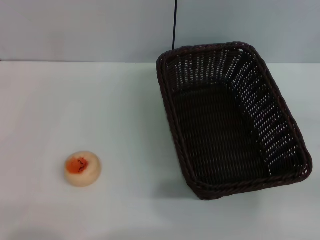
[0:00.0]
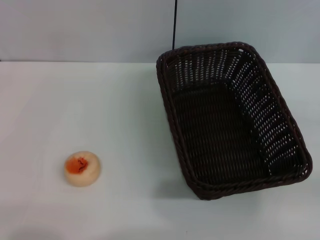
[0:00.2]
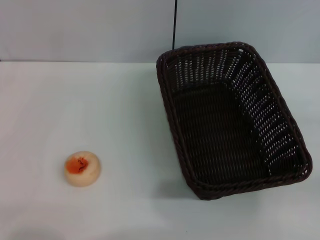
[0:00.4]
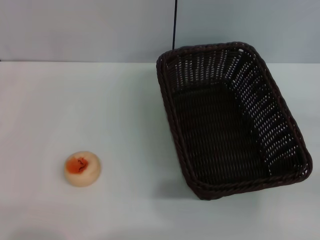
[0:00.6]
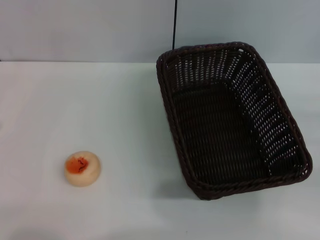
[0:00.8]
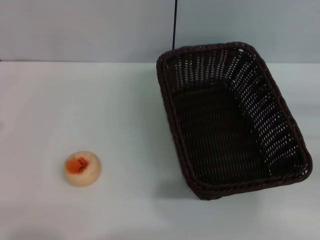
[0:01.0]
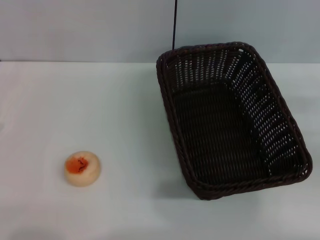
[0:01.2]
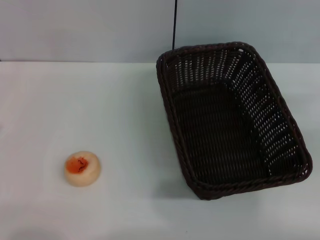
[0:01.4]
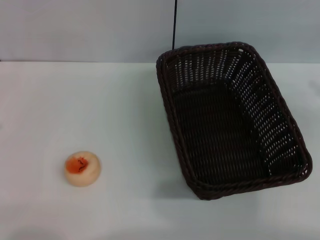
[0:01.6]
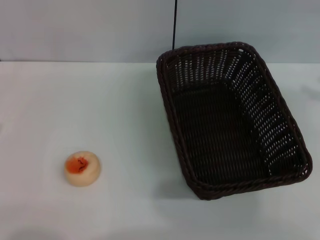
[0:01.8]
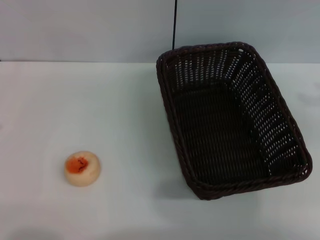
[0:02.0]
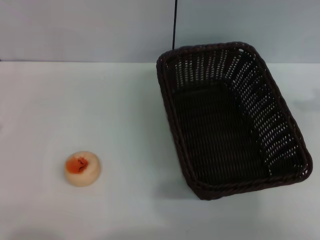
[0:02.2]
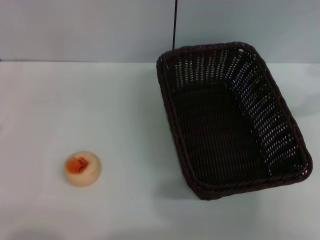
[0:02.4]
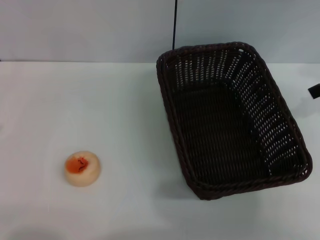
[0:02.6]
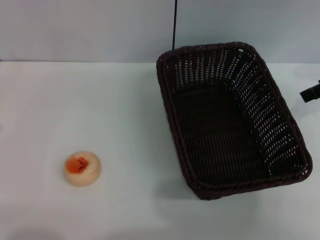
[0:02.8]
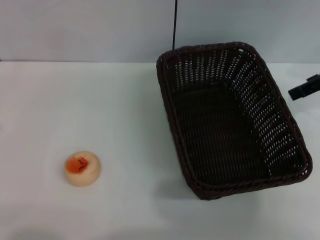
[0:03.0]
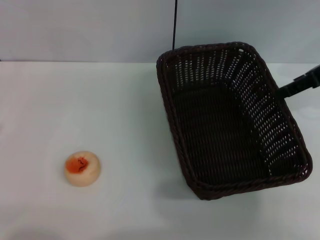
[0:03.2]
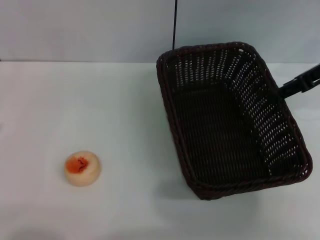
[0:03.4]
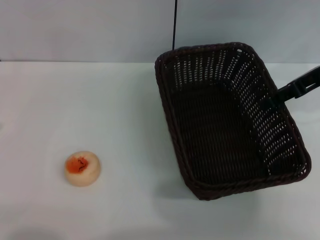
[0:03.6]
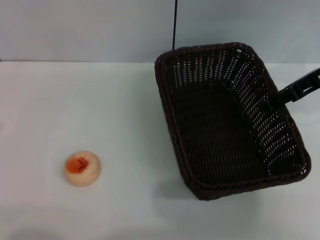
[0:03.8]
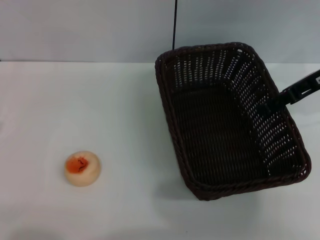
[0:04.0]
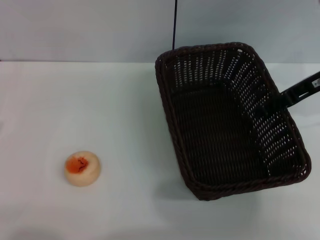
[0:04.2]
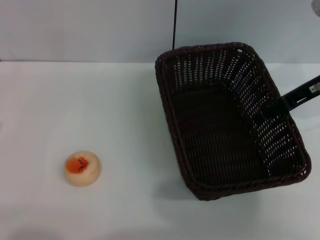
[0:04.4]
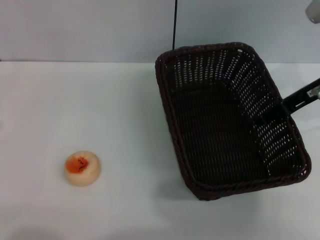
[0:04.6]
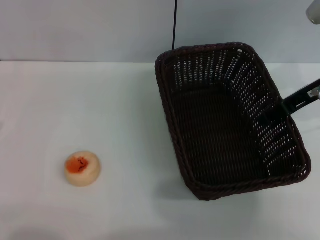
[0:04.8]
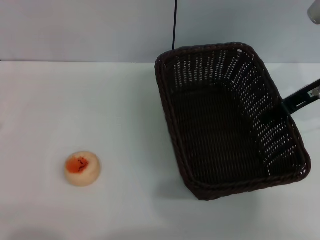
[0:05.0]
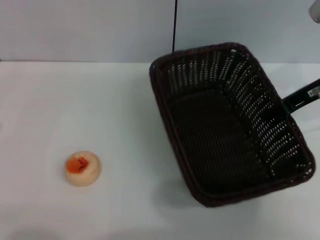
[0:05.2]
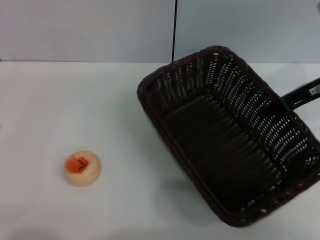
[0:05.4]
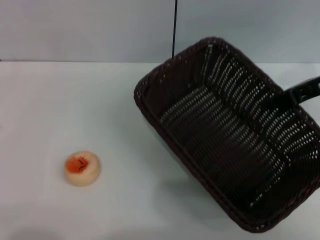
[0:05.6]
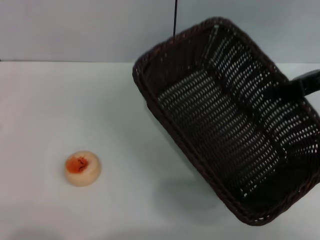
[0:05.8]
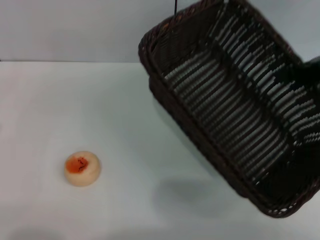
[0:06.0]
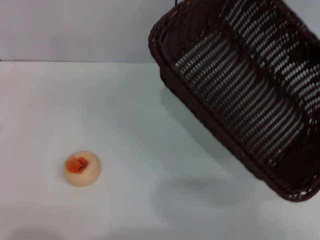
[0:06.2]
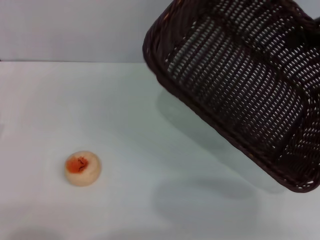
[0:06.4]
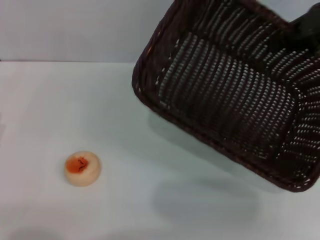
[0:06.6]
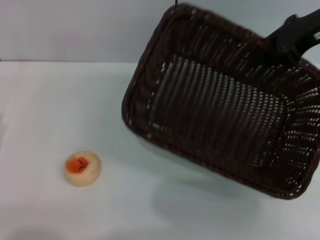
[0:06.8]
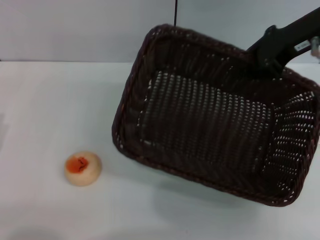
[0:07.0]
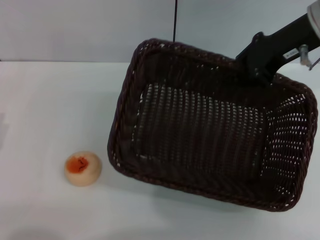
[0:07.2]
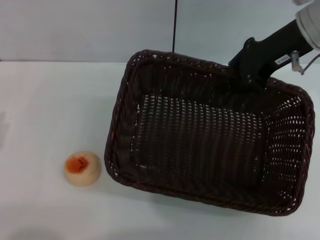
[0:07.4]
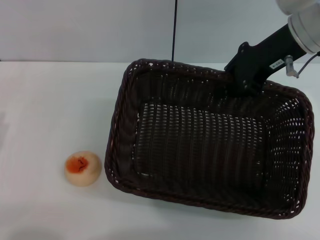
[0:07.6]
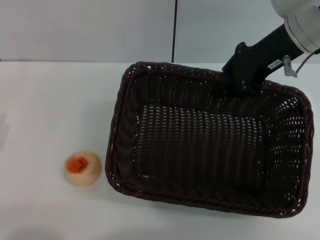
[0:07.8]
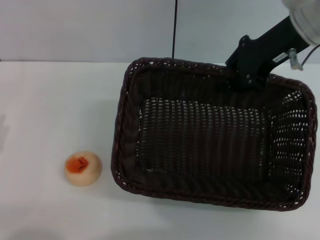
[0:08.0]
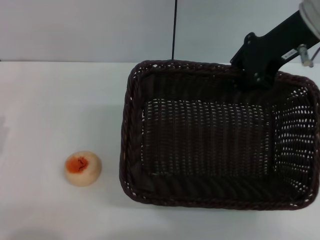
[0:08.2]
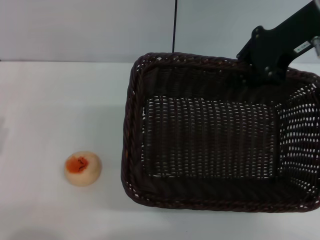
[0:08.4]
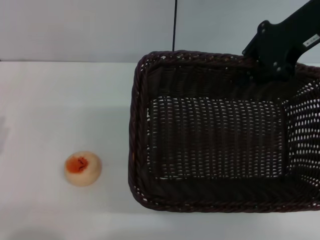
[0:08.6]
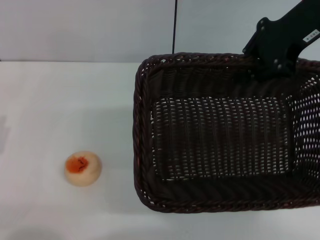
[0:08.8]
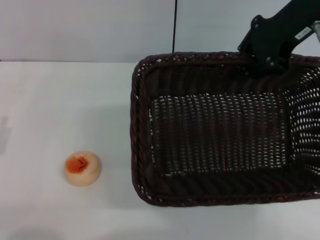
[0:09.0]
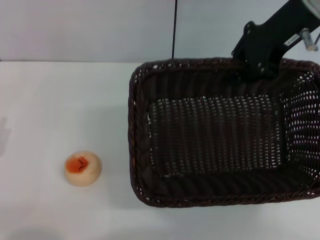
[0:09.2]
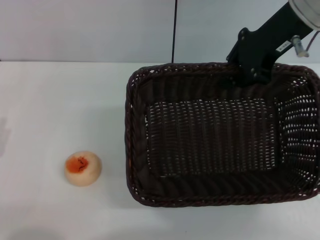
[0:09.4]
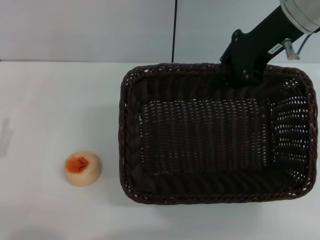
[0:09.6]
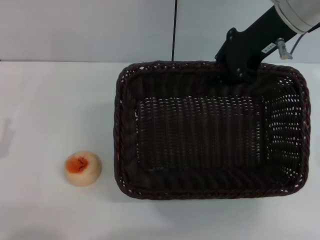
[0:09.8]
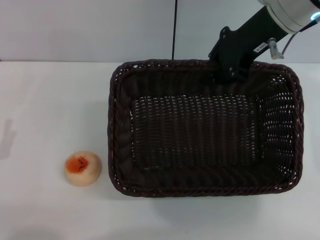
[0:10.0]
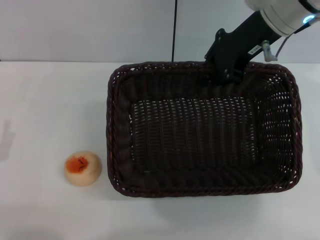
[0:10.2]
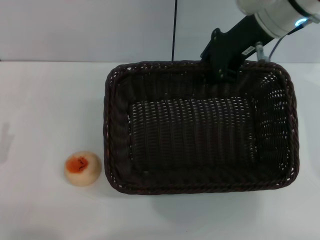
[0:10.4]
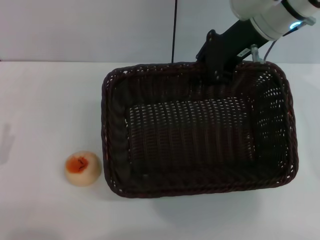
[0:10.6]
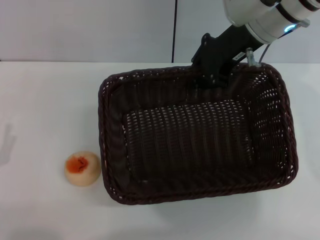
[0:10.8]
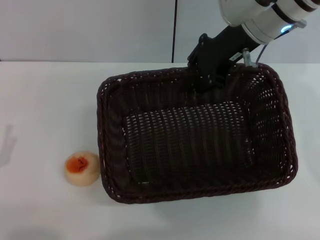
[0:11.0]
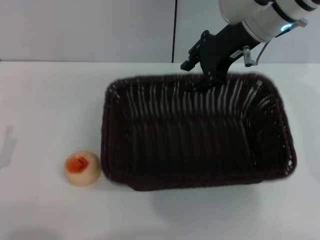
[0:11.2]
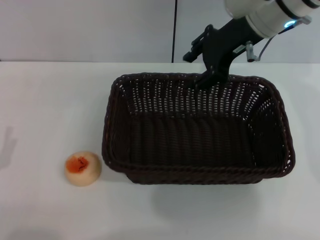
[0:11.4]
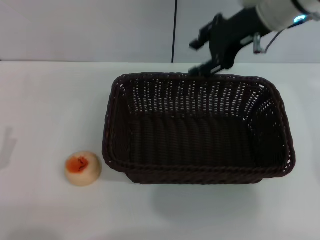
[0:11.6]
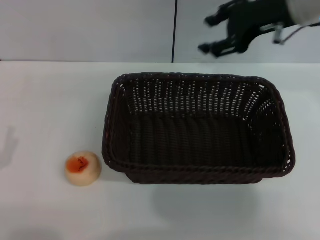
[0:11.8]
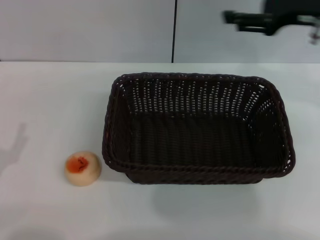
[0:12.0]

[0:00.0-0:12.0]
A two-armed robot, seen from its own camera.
Step, 0:00.0 to 0:11.6: Move the basket to the center of view with the right gripper.
0:01.6 to 0:03.0: The right gripper travels to the left and forward by roughly 15 cm.
0:03.0 to 0:04.4: The right gripper goes approximately 5 cm downward.
0:04.4 to 0:06.0: The right gripper heads to the right, covering about 5 cm, and closes.
0:06.0 to 0:07.6: The right gripper moves to the left, roughly 15 cm.
0:07.6 to 0:09.0: The right gripper is displaced upward by about 5 cm.
0:09.0 to 0:10.4: The right gripper travels downward by roughly 5 cm.
0:10.4 to 0:12.0: The right gripper shifts some 10 cm to the right, and opens.

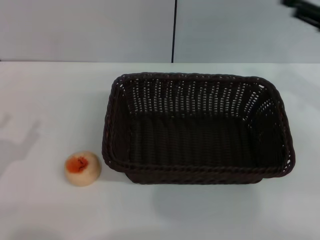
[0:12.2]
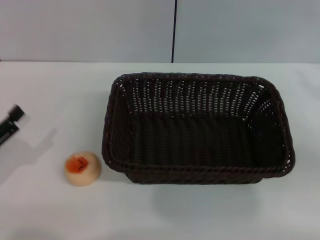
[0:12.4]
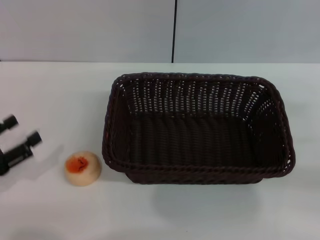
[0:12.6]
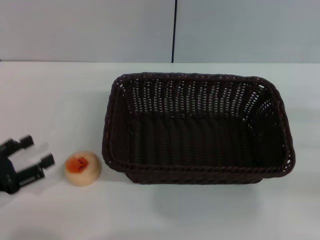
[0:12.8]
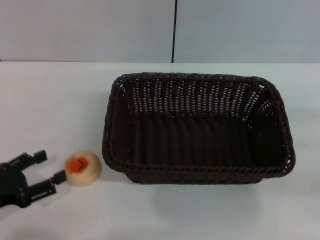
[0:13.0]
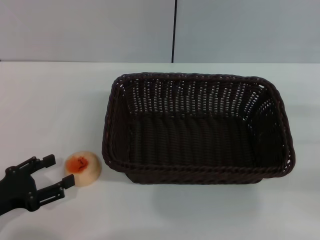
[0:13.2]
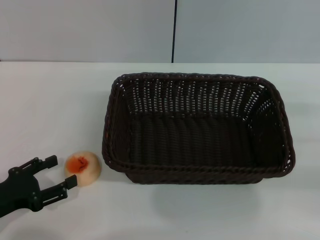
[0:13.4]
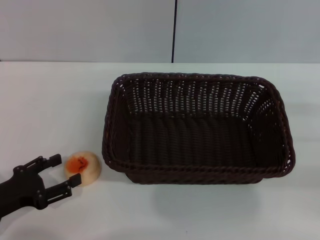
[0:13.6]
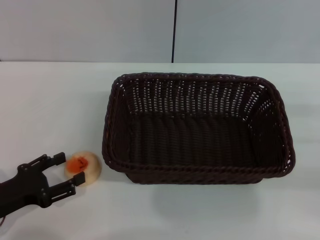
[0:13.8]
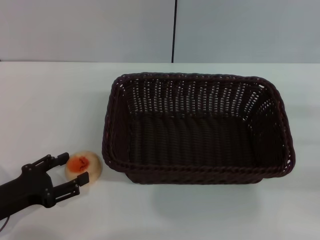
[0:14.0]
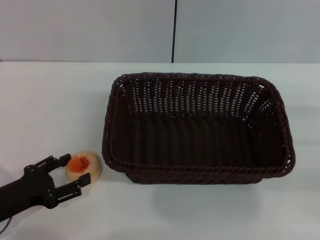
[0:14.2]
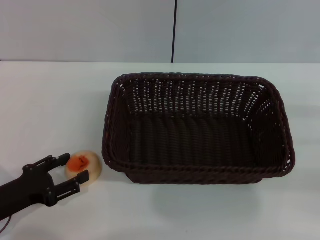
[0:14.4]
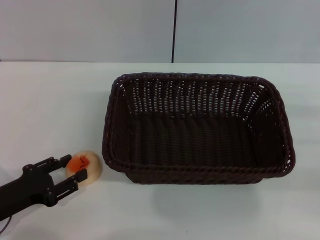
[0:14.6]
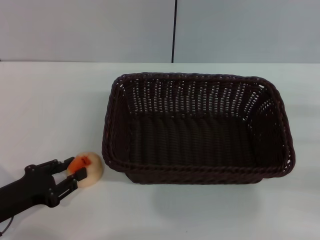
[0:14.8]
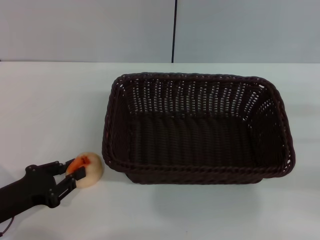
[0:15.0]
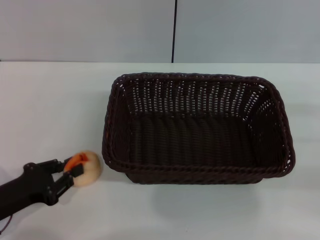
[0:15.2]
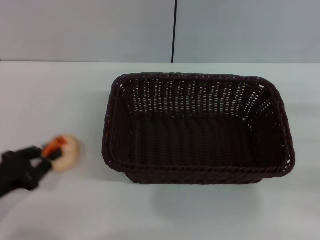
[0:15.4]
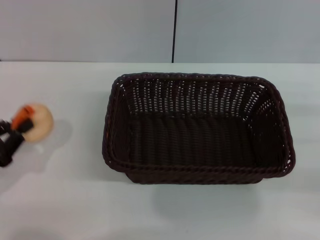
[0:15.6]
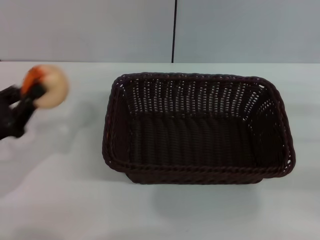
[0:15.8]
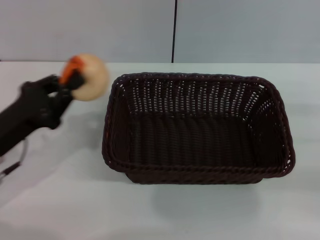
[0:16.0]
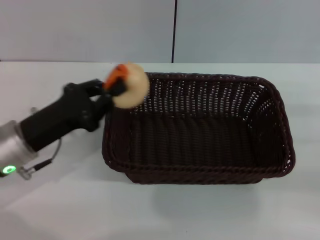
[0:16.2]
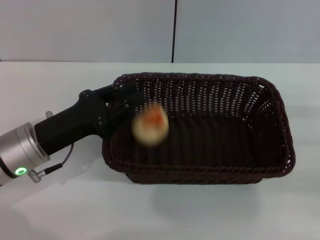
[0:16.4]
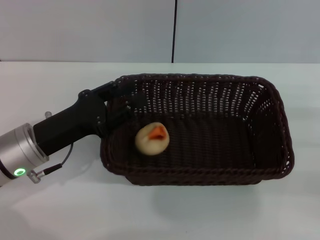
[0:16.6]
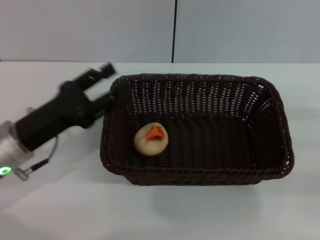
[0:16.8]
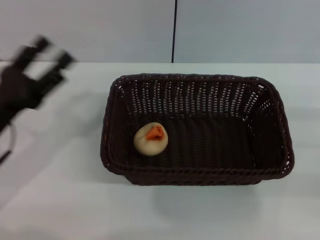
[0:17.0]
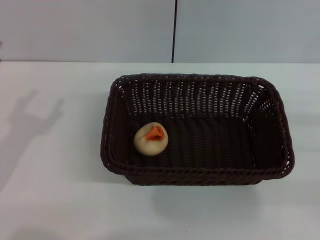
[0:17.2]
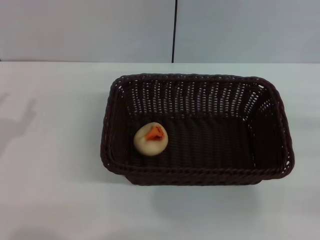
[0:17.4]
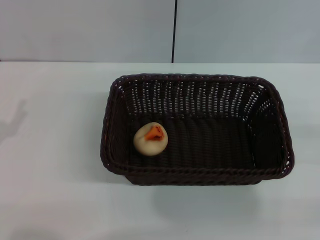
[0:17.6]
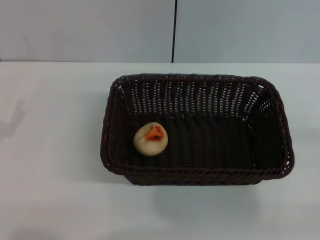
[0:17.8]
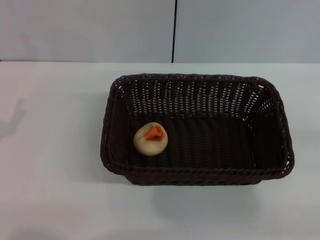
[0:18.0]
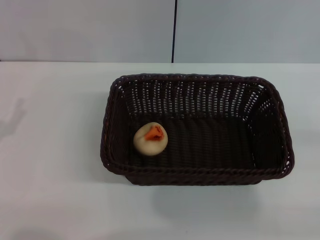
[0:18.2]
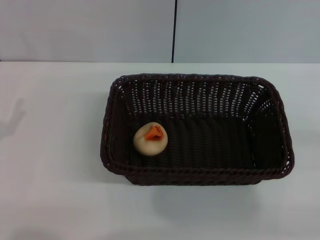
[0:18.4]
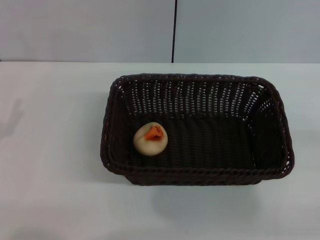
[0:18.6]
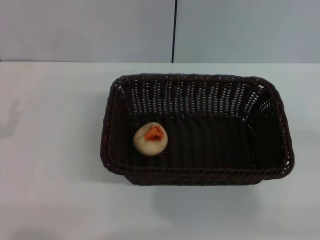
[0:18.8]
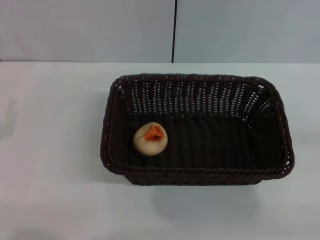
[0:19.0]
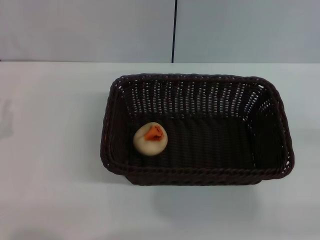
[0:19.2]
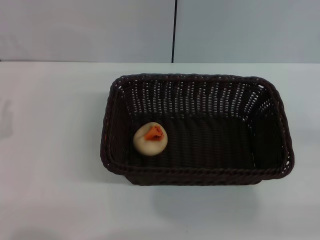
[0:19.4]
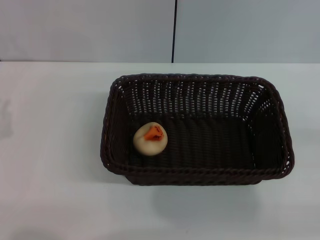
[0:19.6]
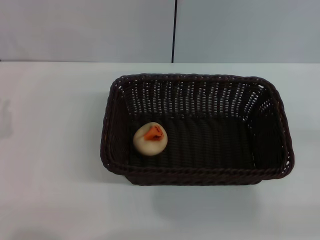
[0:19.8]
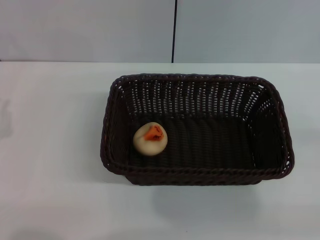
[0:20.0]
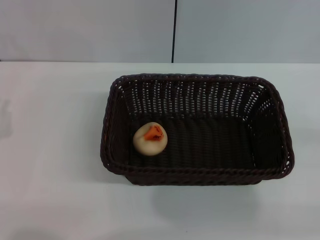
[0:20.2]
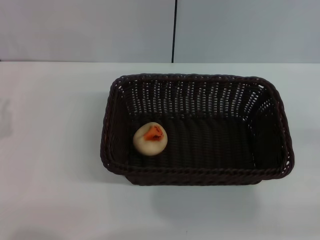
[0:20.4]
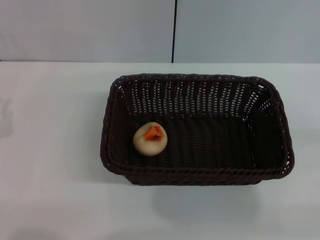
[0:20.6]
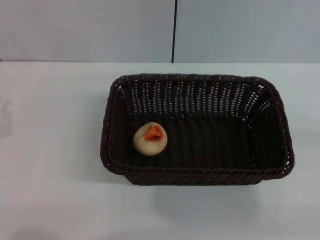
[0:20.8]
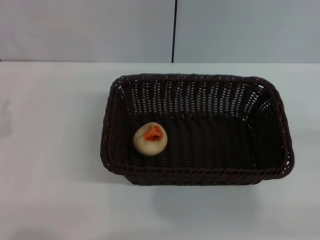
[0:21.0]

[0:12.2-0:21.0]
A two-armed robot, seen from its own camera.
Step, 0:12.2 to 0:15.6: Pick up the egg yolk pastry with the left gripper.
Step, 0:15.8 to 0:16.8: Place the egg yolk pastry into the basket with the left gripper.
0:12.2 to 0:13.6: The right gripper shifts roughly 15 cm downward, backward and to the right.
0:13.6 to 0:15.2: The left gripper closes up.
0:15.2 to 0:16.6: The left gripper is displaced to the right, forward and upward by roughly 10 cm.
0:16.6 to 0:18.0: The left gripper shifts roughly 15 cm to the left and backward, and opens up.
0:19.6 to 0:21.0: The two grippers keep their place.

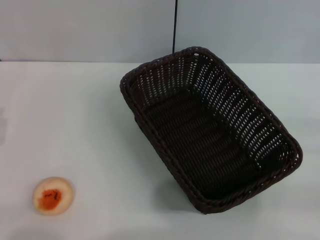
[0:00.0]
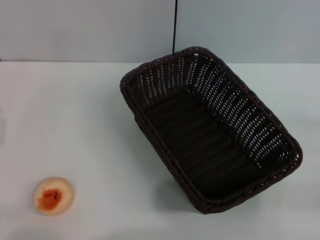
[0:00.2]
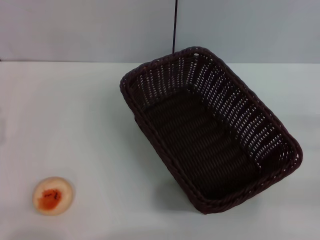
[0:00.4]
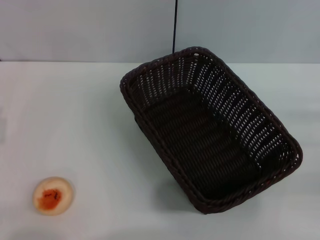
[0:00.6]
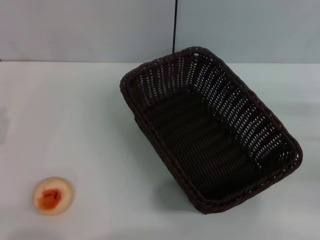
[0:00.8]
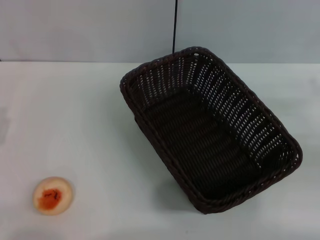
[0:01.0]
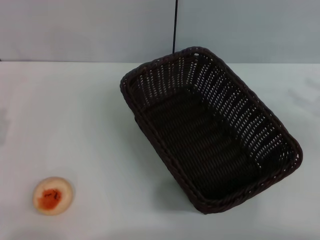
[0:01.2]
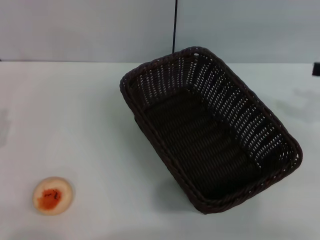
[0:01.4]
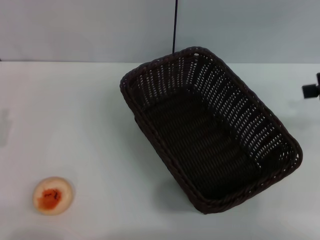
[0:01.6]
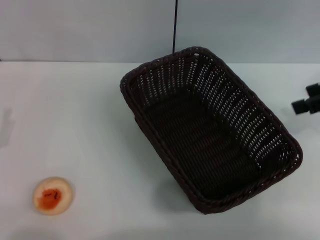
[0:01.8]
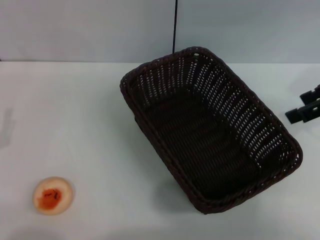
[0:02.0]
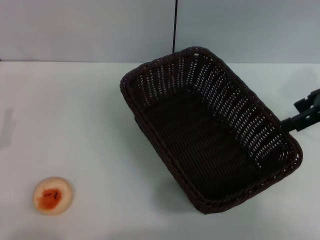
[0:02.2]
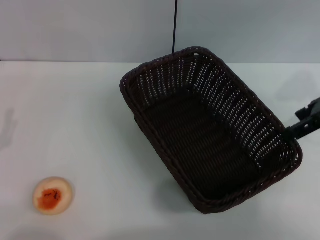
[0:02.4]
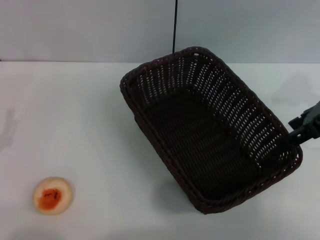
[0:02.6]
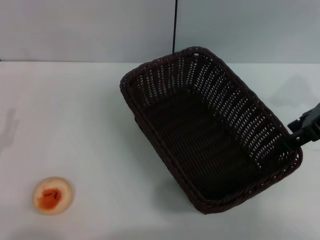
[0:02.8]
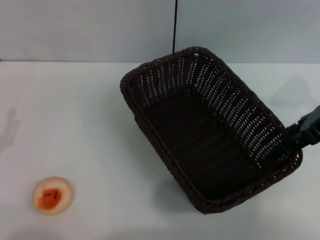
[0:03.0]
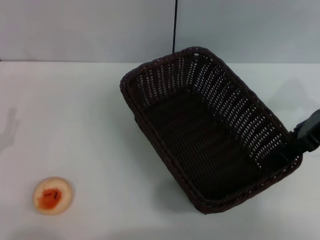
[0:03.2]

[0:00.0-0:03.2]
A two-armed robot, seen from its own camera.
0:00.0 to 0:01.6: The right gripper shifts some 20 cm upward and forward, and opens its fingers.
0:01.6 to 0:03.2: The right gripper is displaced to the left by some 10 cm.
